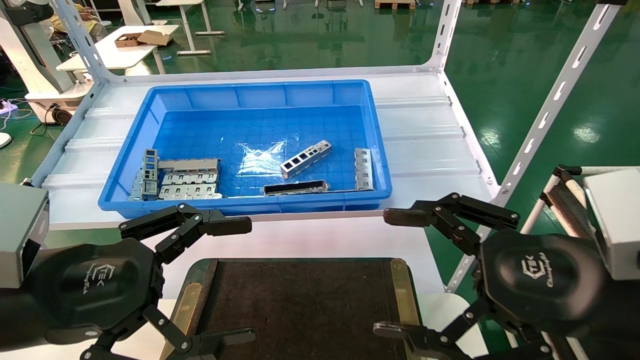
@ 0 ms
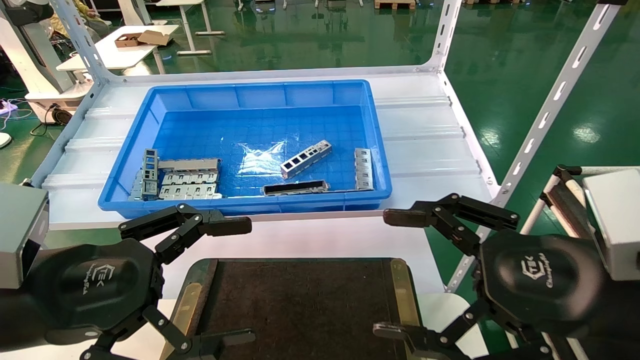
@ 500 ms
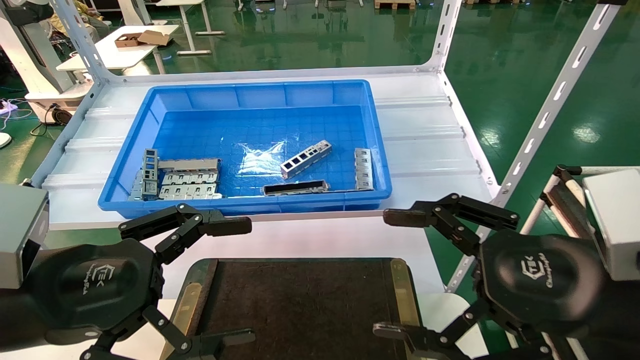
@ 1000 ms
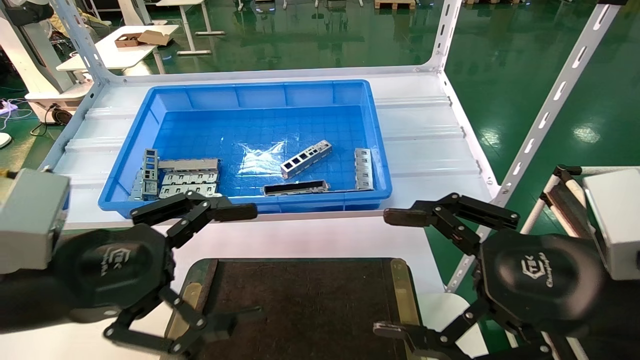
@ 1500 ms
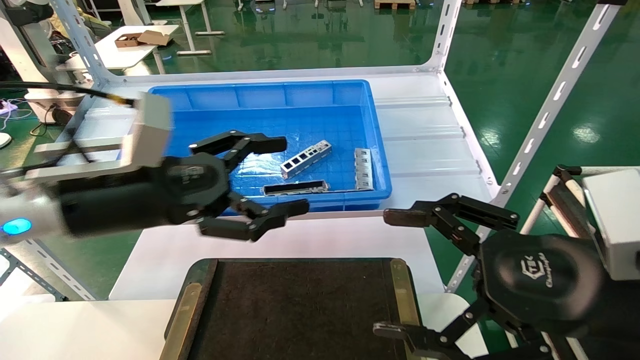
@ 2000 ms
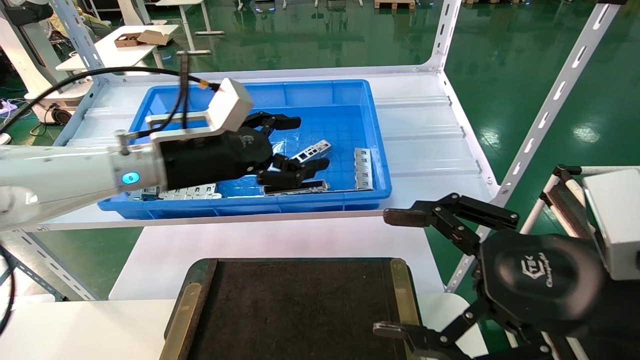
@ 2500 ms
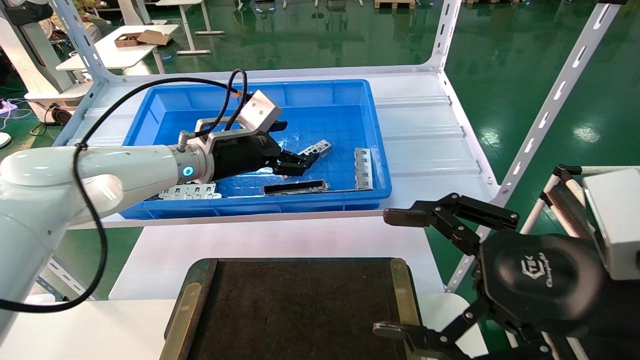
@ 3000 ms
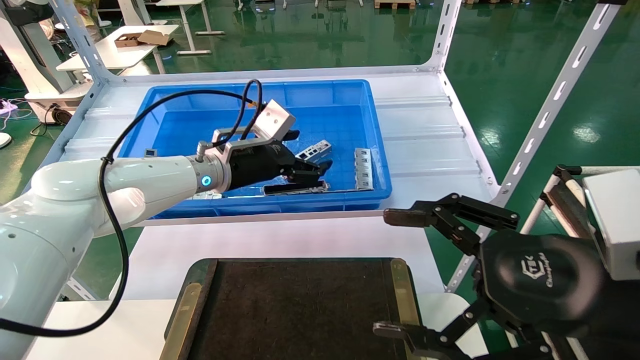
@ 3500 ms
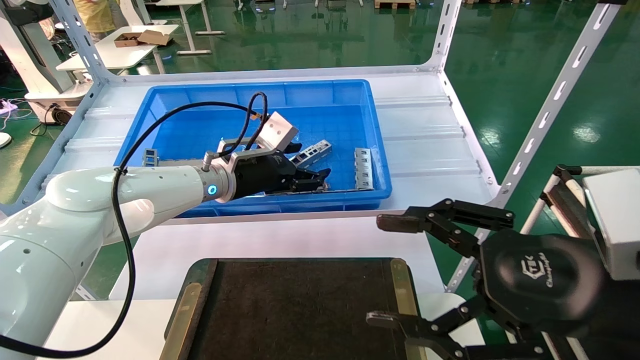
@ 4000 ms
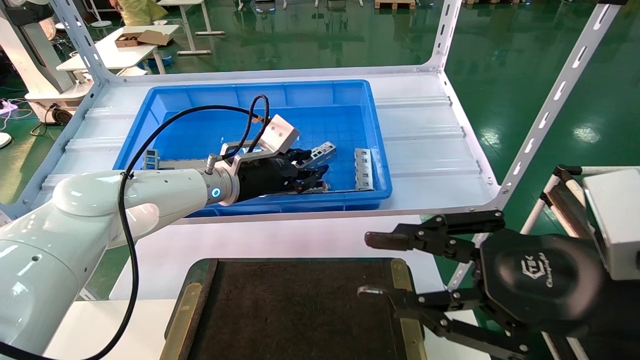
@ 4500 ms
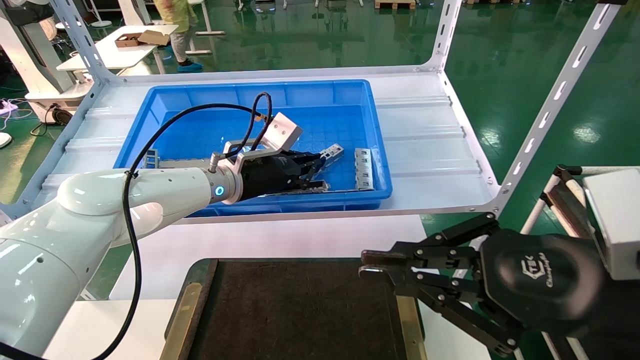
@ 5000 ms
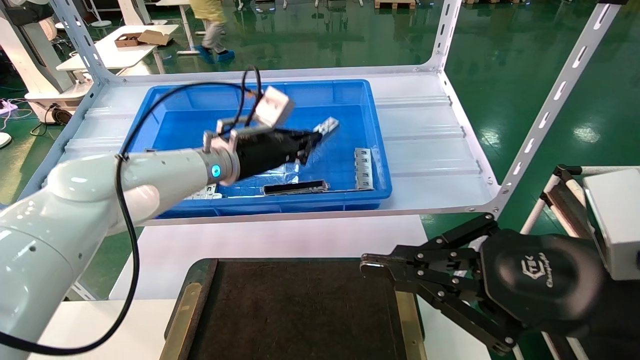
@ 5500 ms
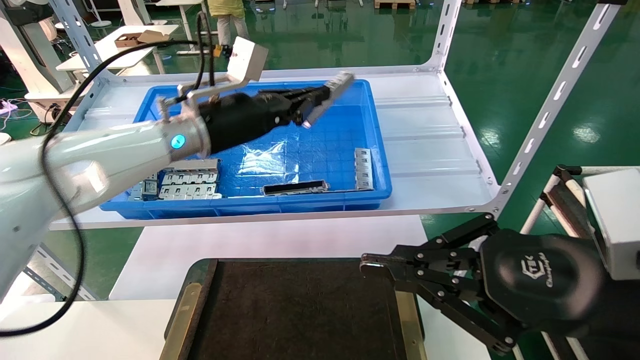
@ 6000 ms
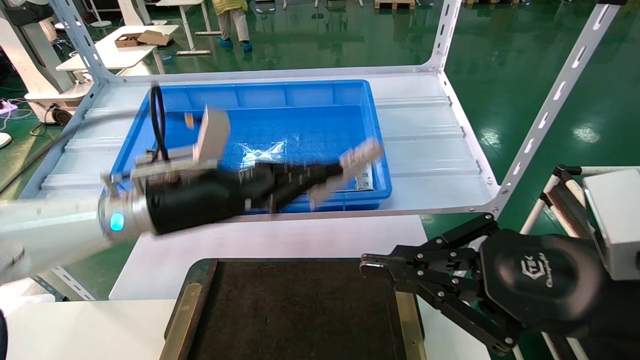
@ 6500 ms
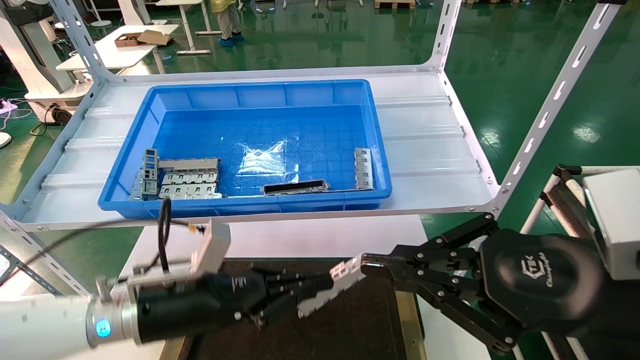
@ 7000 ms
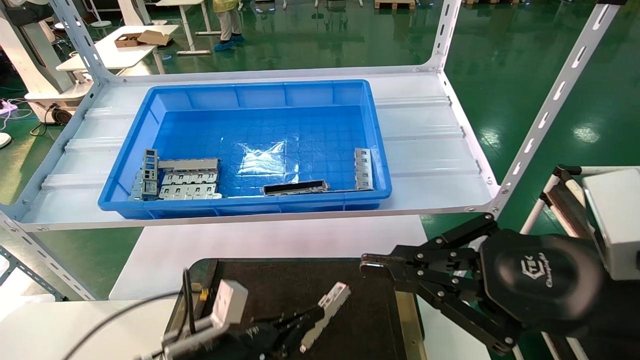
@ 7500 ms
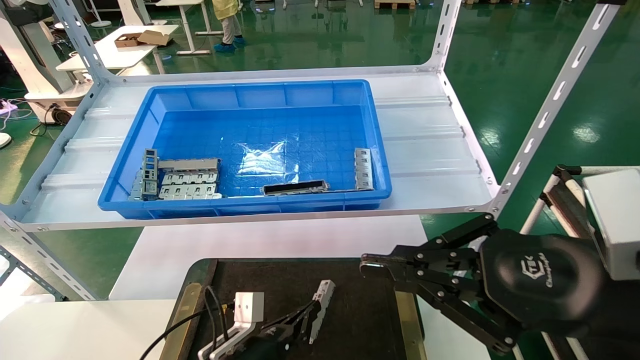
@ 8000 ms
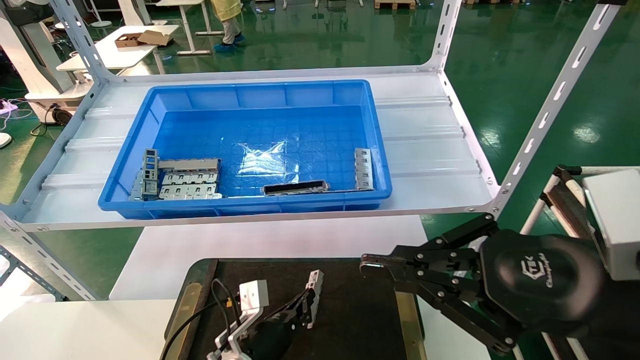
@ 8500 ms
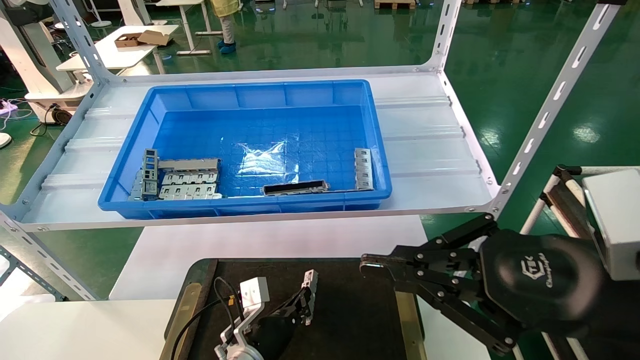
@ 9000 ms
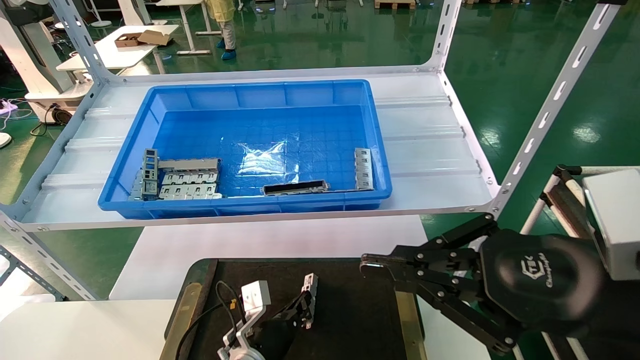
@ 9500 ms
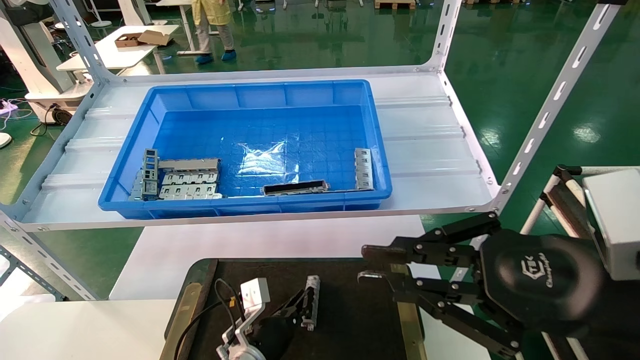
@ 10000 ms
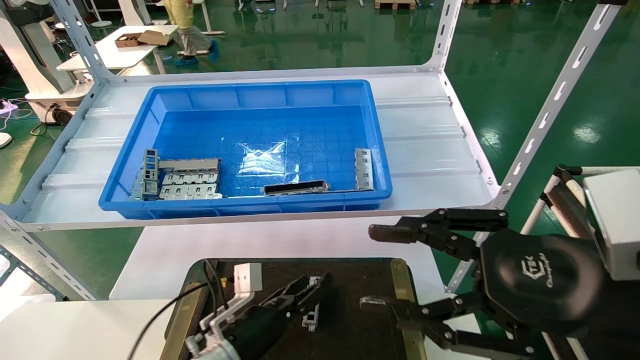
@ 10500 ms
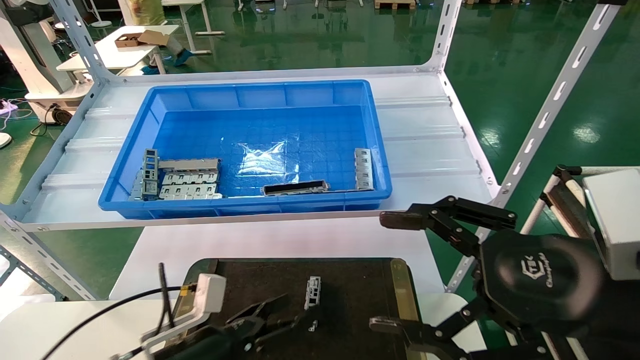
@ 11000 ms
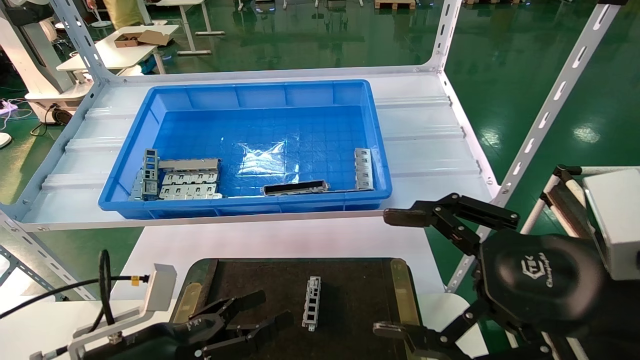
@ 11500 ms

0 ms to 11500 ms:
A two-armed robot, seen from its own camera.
Task of the whole recording: Grasp the part with one hand and place it on the black container.
Step, 1500 ms to 5000 ms: Pick up the front USB bracket from the feeding area.
Step, 5500 ms to 10000 ms: Place the front USB bracket into the box.
0 ms to 2000 ms: The left gripper heads forward, covering approximately 10 cm.
2000 ms to 4000 ms: The left gripper travels forward and to the right by approximately 20 cm.
4000 ms to 6000 ms: The right gripper closes its fingers. The left gripper is displaced upward by roughly 5 cm, and closes.
6000 ms to 7500 ms: The left gripper goes roughly 30 cm downward.
7500 ms to 9500 ms: The left gripper travels forward, downward and to the right by some 15 cm.
9500 ms to 11500 ms: The left gripper travels upward, backward and to the left by about 25 cm, and opens up, while the right gripper opens its fingers.
